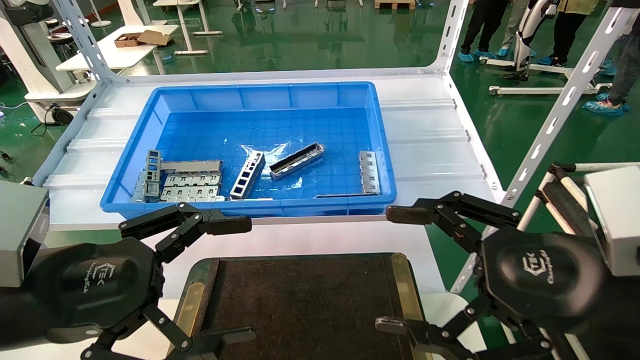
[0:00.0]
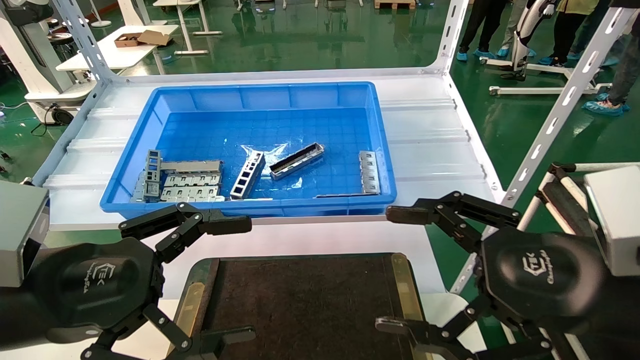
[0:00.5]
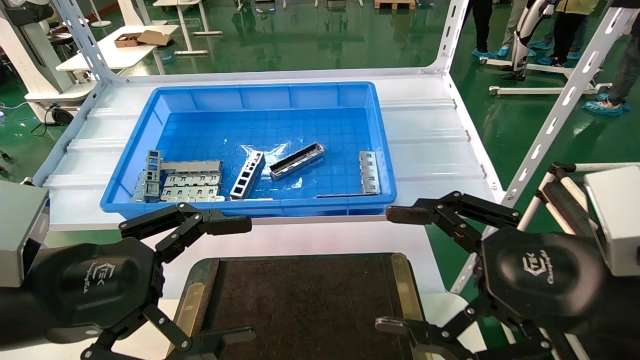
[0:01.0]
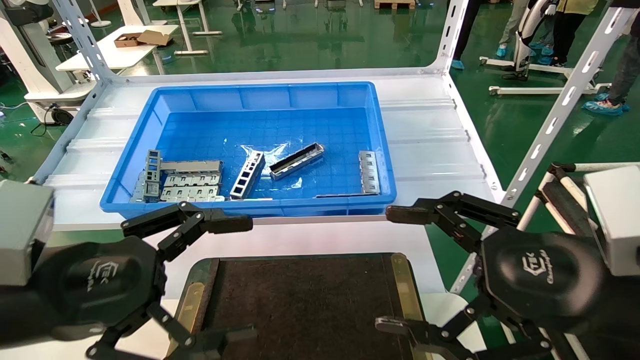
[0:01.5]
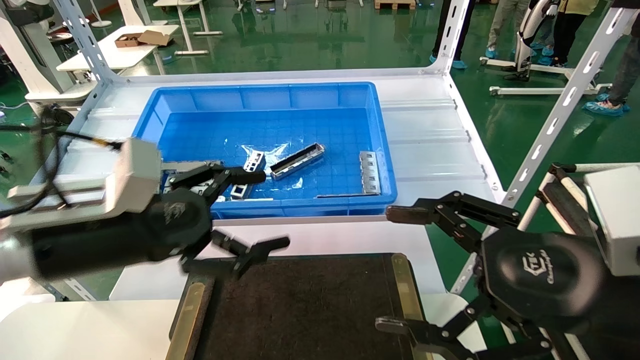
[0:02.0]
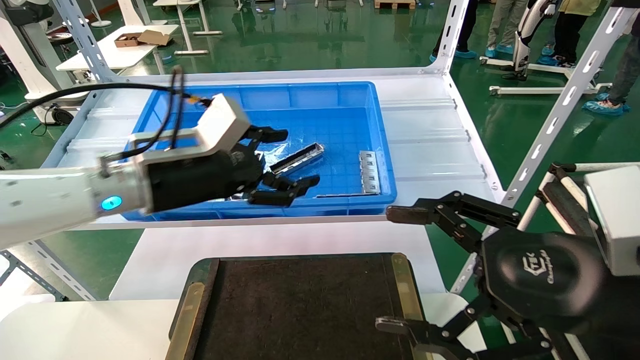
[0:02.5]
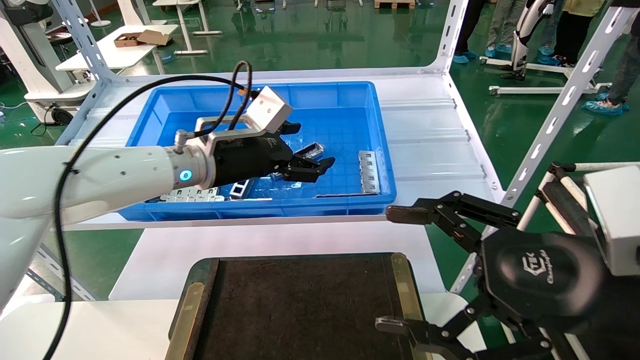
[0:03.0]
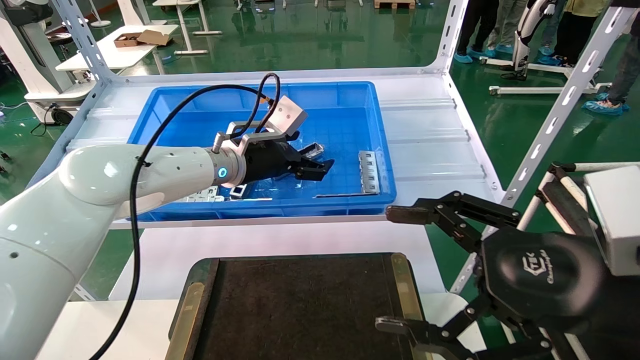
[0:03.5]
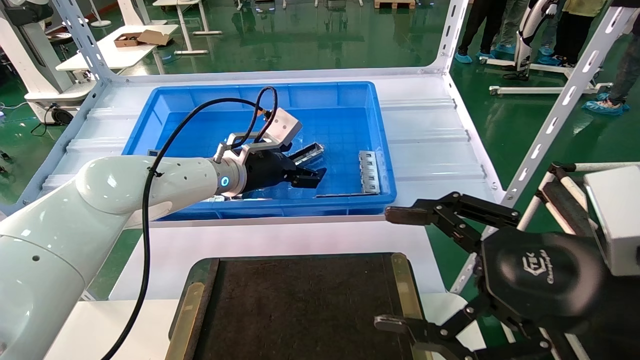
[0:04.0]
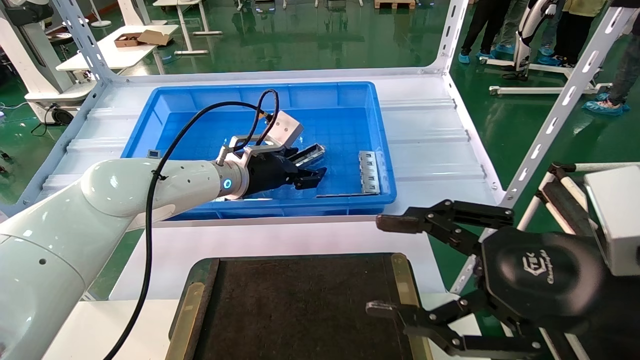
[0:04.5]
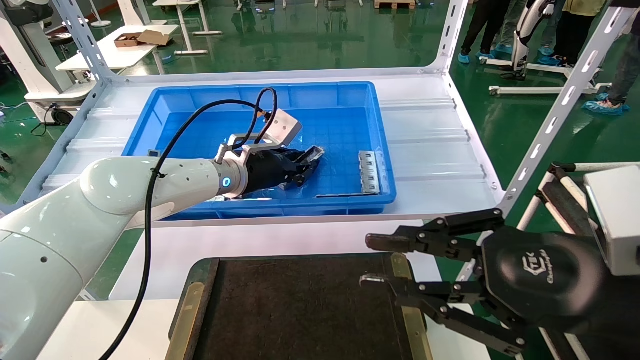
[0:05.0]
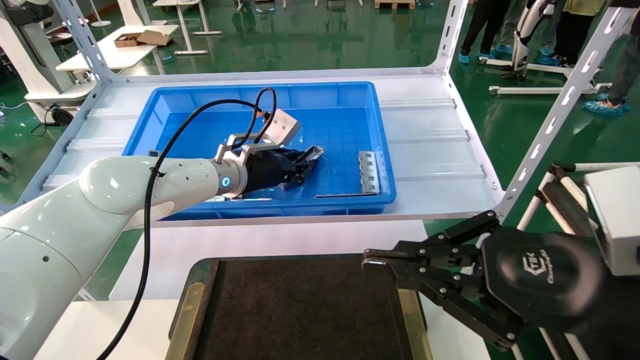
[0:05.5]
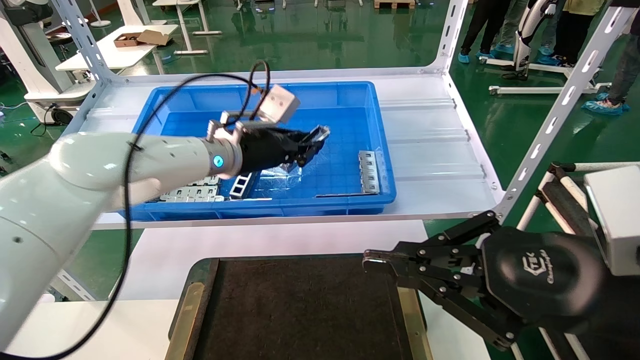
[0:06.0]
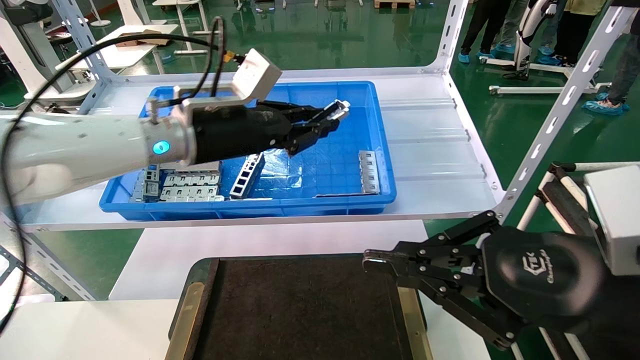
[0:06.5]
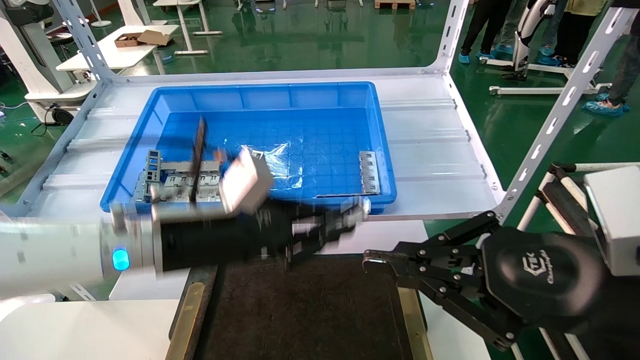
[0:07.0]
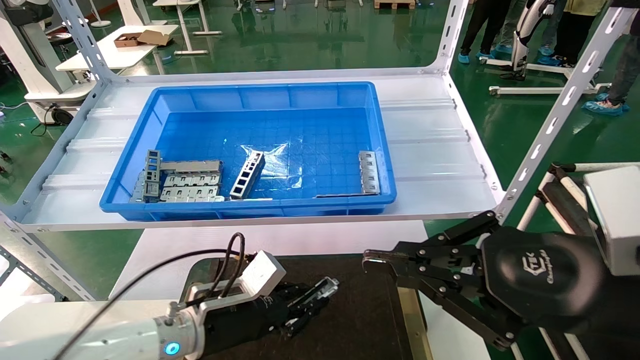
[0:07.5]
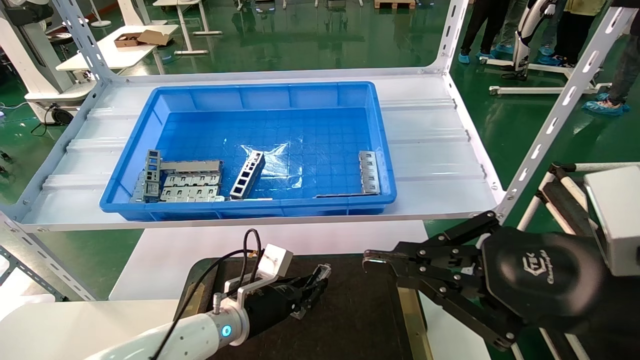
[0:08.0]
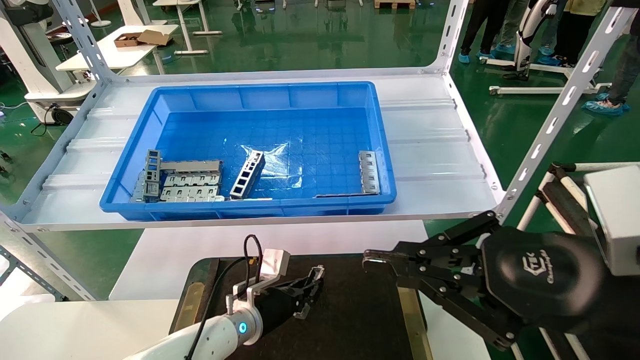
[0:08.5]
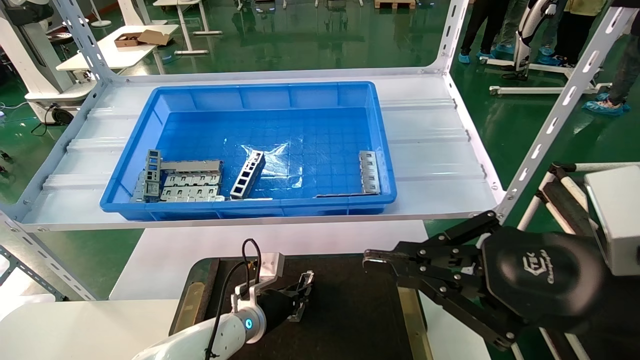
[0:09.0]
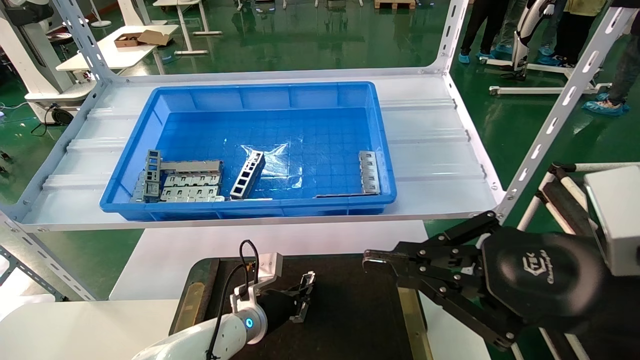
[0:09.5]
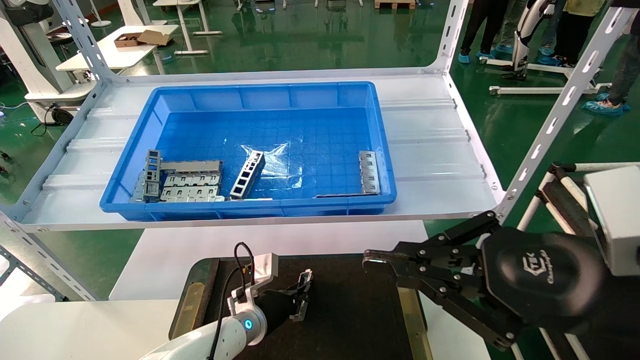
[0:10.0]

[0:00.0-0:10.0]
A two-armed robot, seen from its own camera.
Task of the whole recording: Grasp the part with one hand and place it on the black container.
Step, 0:02.0 to 0:06.0: Pick up the front USB bracket from the feeding area.
0:00.0 to 0:02.0: The left gripper shifts about 10 cm forward.
0:02.0 to 0:04.0: The left gripper heads forward and to the right, covering roughly 25 cm.
0:04.0 to 0:06.0: The left gripper closes. The right gripper closes up.
0:06.0 to 0:08.0: The left gripper moves downward, about 25 cm.
0:08.0 to 0:10.0: The left gripper is displaced downward by about 5 cm.

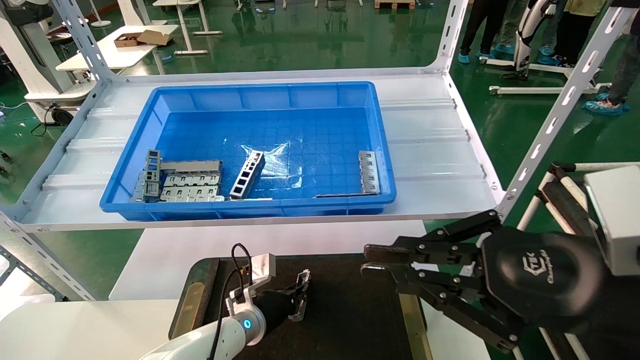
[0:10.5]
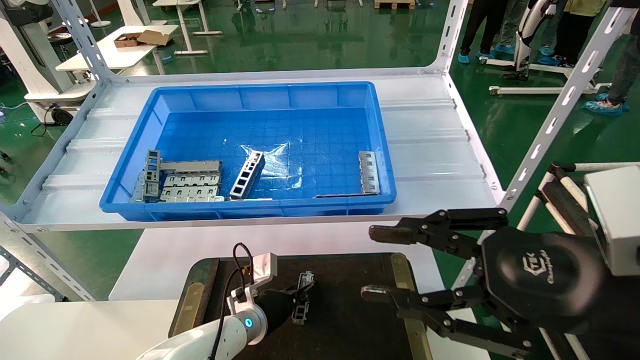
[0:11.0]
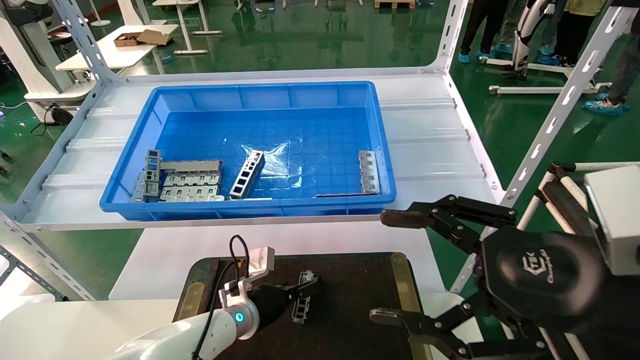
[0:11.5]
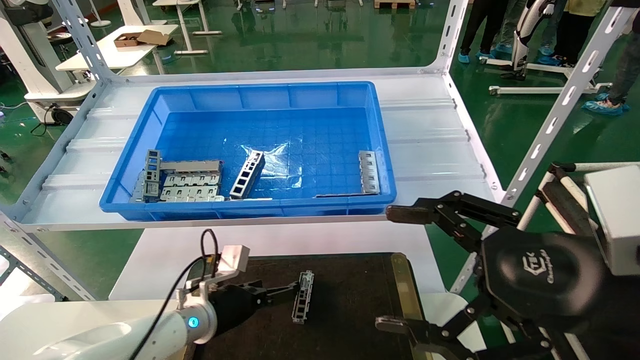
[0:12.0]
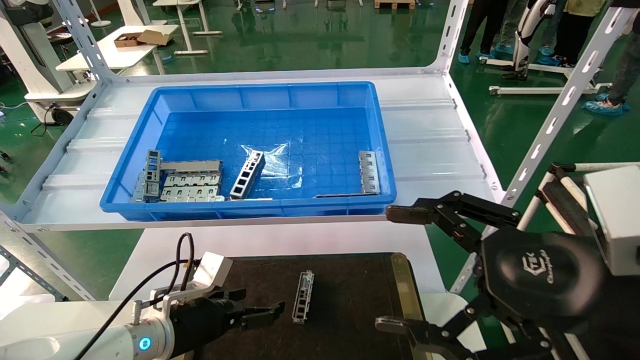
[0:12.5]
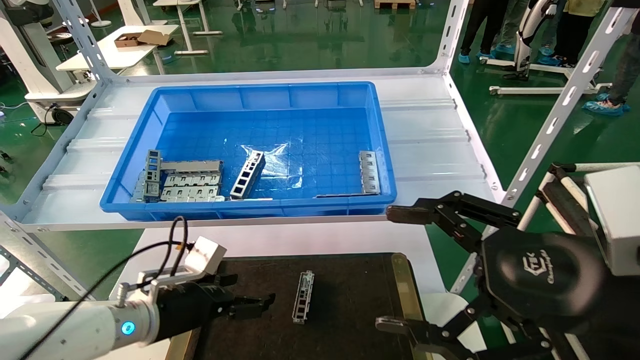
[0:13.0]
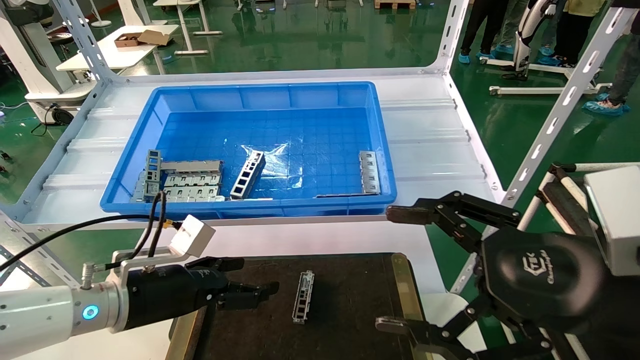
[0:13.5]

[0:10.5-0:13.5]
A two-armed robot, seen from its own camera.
Task of the whole recording: Grasp the part with one hand and place it on the black container.
0:10.5 to 0:12.0: The left gripper shifts some 10 cm to the left and upward, and opens its fingers, while the right gripper opens.
0:12.0 to 0:13.5: The left gripper is displaced upward, backward and to the left by some 15 cm.
